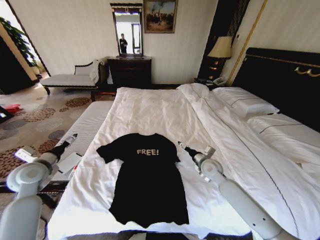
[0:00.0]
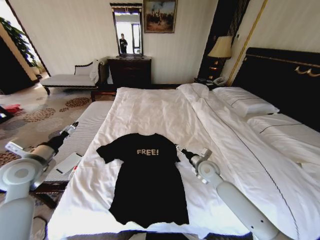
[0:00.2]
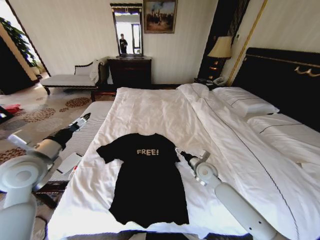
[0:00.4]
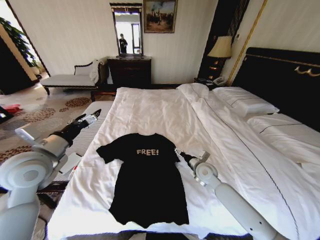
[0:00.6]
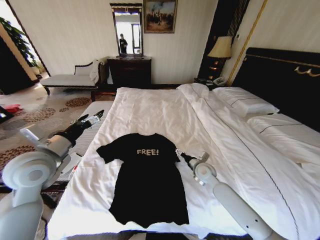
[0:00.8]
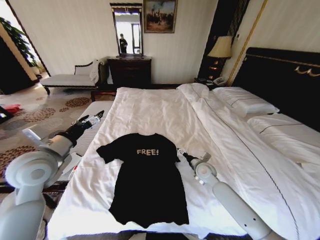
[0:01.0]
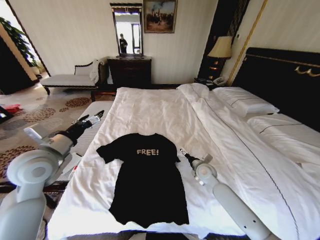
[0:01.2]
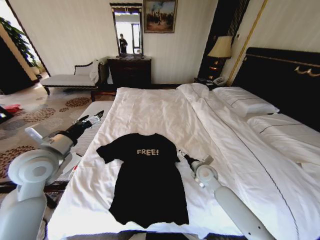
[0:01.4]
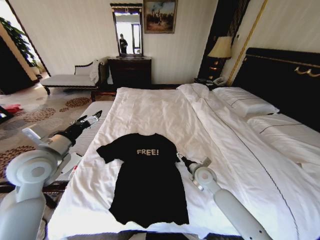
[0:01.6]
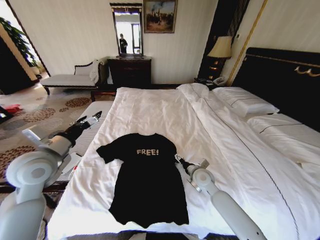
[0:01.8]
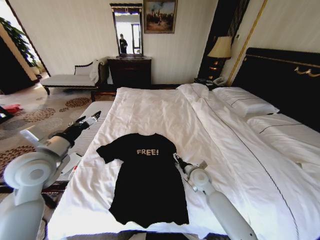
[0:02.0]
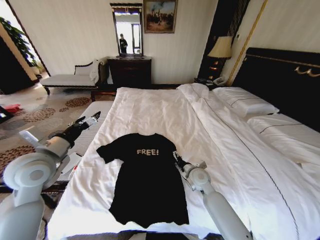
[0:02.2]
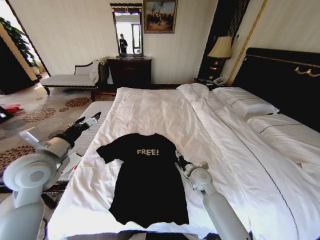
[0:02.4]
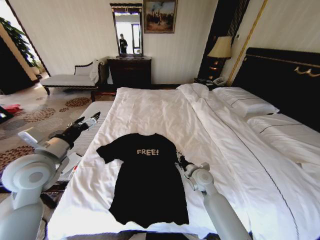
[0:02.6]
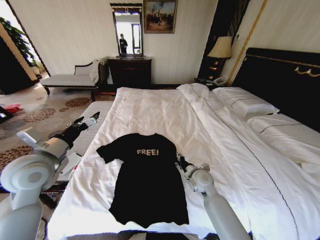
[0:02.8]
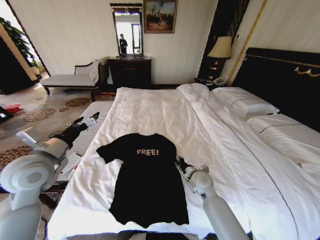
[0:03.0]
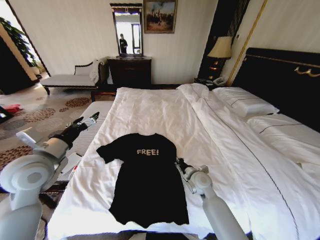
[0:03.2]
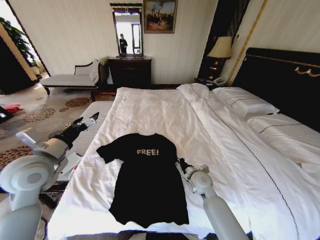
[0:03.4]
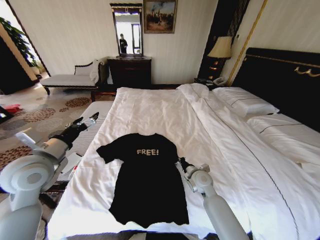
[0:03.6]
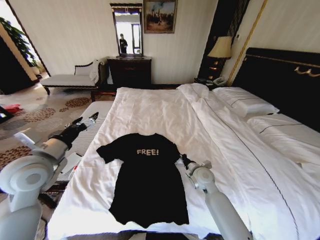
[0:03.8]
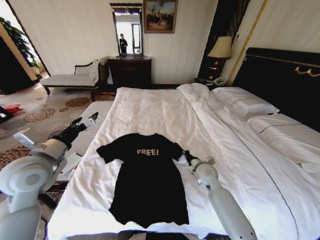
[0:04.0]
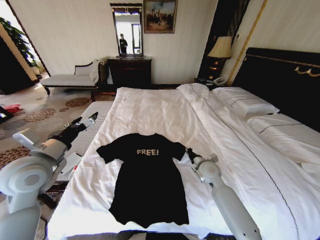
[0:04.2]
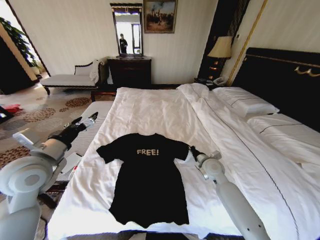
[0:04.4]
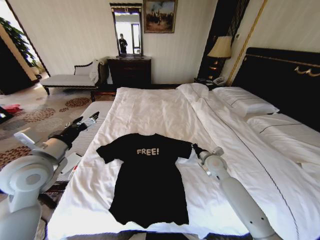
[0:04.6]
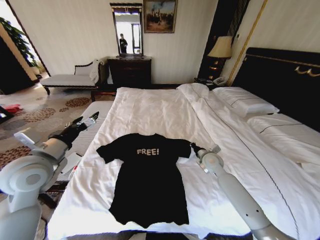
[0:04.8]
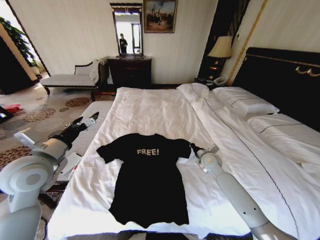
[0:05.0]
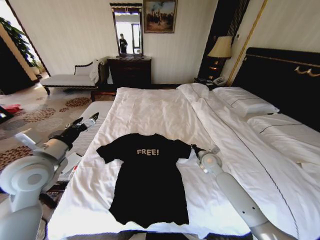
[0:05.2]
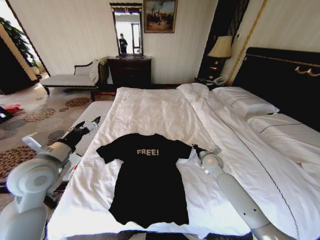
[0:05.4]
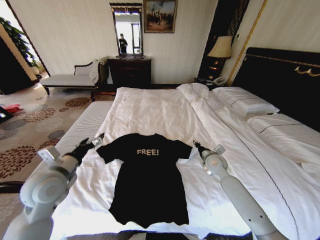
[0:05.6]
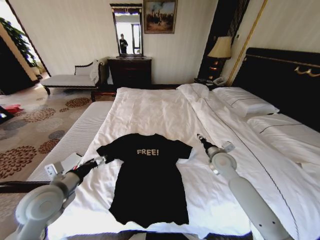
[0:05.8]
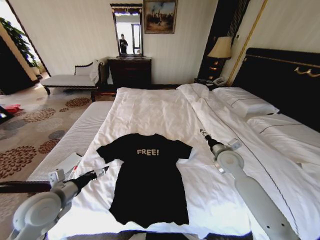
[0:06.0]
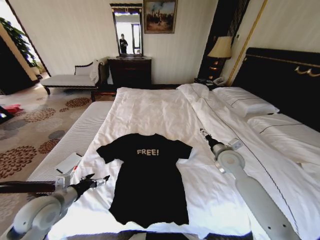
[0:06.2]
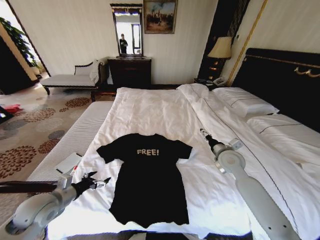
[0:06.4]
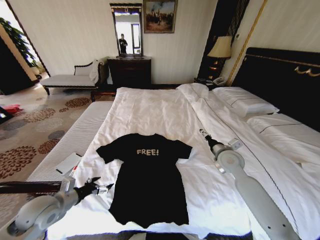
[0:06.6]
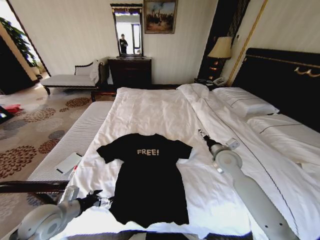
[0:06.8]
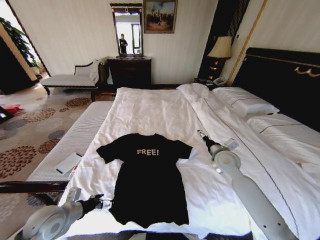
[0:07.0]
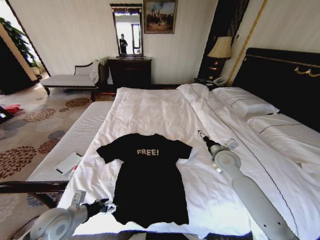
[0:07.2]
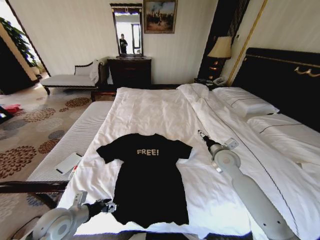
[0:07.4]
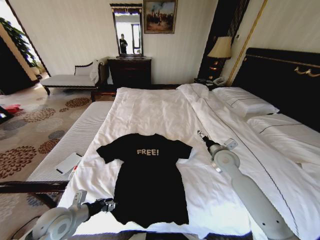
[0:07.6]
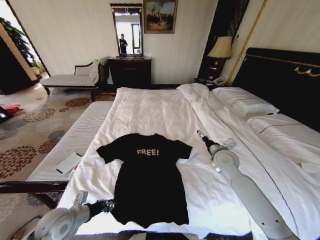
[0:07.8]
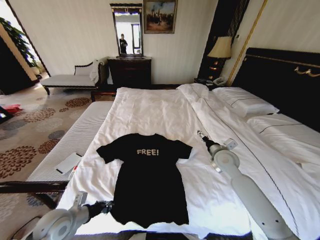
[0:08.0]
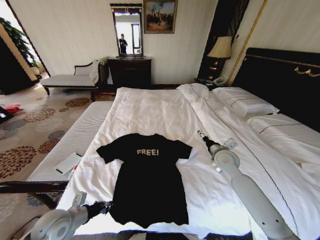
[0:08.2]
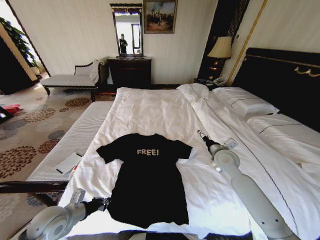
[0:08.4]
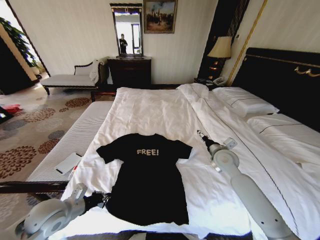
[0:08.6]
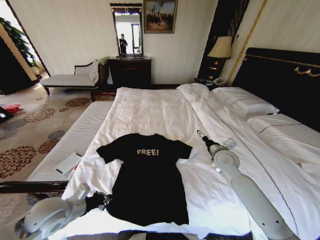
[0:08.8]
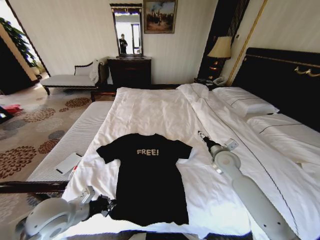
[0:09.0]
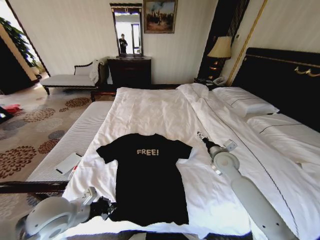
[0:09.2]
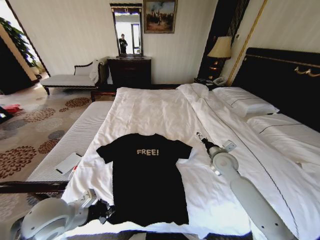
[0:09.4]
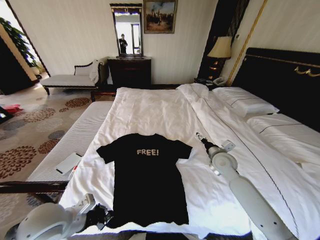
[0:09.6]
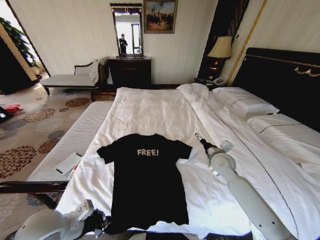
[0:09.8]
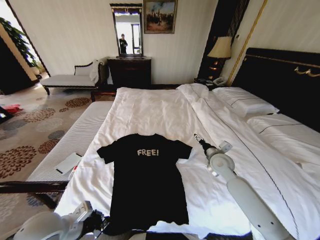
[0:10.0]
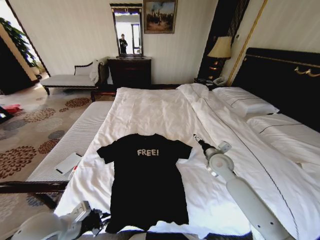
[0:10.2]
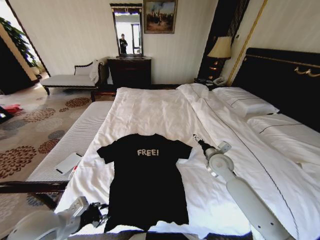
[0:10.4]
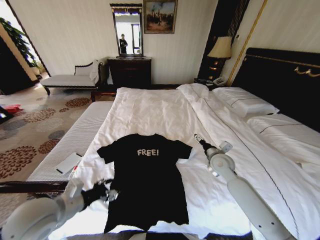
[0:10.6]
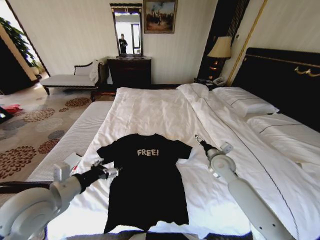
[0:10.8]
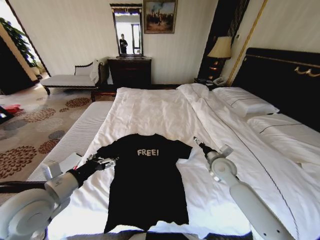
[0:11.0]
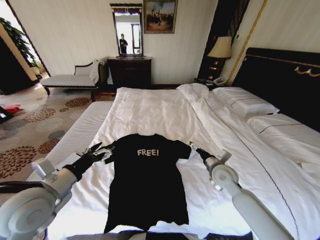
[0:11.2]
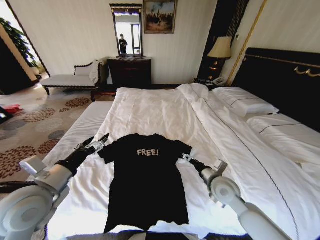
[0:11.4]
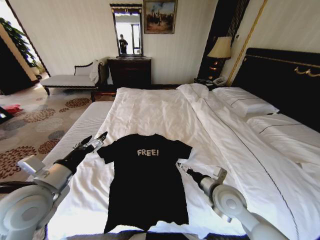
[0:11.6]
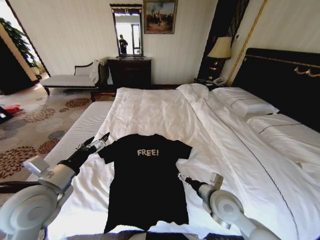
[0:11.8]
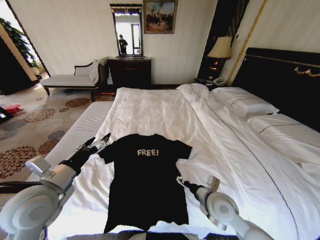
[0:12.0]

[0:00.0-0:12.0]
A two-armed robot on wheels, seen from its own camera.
Task of the whole recording: Fold the clothes on the bed.
0:00.0 to 0:01.6: The right gripper changes place by roughly 5 cm, while the left gripper is displaced to the right and upward by about 15 cm.
0:01.6 to 0:03.0: The right gripper closes.
0:03.0 to 0:04.4: The right gripper moves to the right, about 5 cm, and closes its fingers.
0:04.4 to 0:06.0: The left gripper shifts approximately 10 cm downward and backward, while the right gripper is displaced upward by approximately 5 cm, and opens up.
0:06.0 to 0:07.6: The left gripper shifts some 10 cm downward, and closes up.
0:07.6 to 0:09.0: The left gripper goes roughly 10 cm upward, and closes.
0:09.0 to 0:10.4: The left gripper opens its fingers.
0:10.4 to 0:12.0: The right gripper shifts approximately 15 cm backward and to the left. The left gripper moves upward, some 5 cm, and opens its fingers.

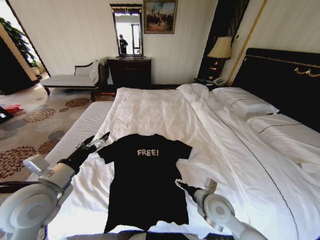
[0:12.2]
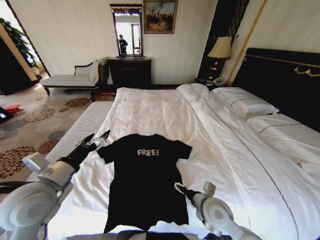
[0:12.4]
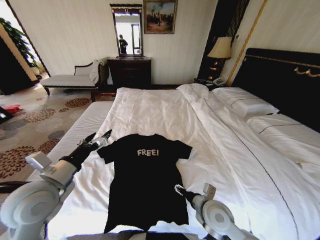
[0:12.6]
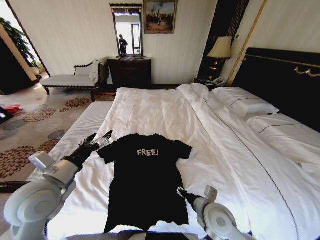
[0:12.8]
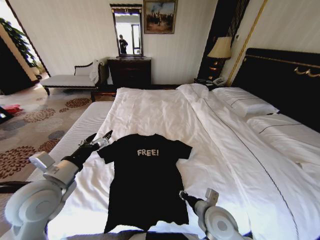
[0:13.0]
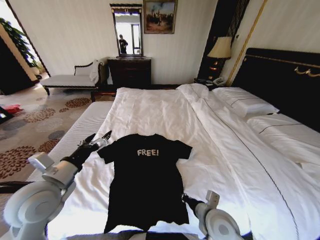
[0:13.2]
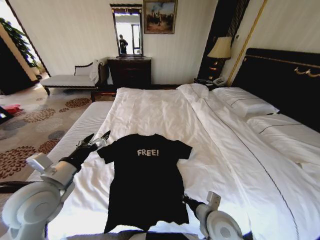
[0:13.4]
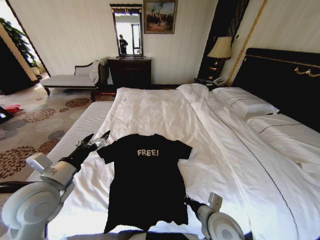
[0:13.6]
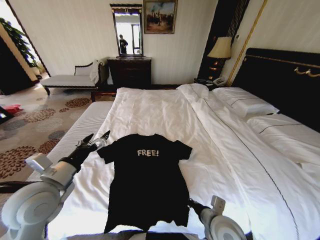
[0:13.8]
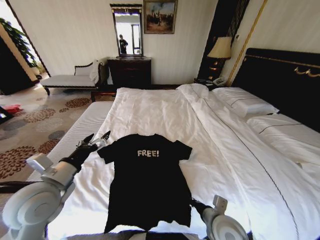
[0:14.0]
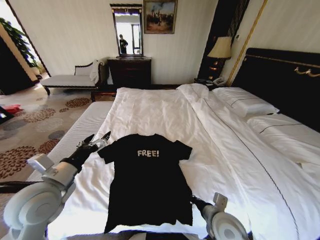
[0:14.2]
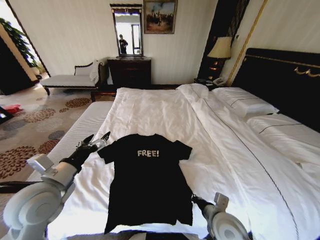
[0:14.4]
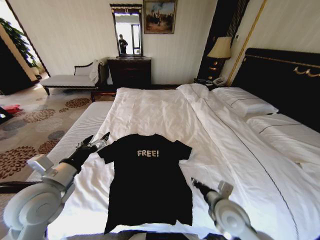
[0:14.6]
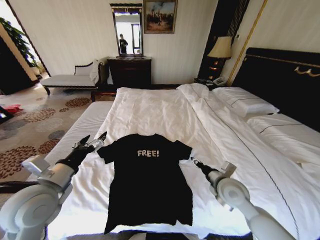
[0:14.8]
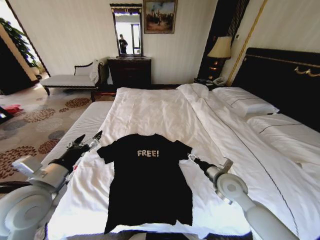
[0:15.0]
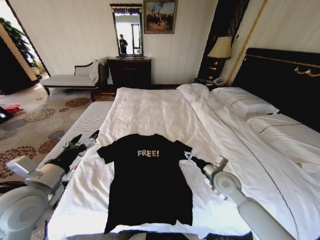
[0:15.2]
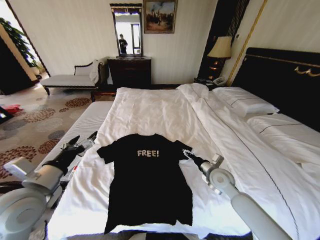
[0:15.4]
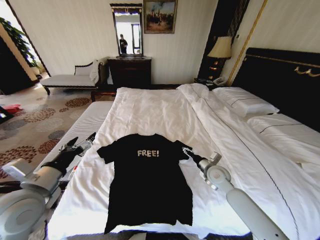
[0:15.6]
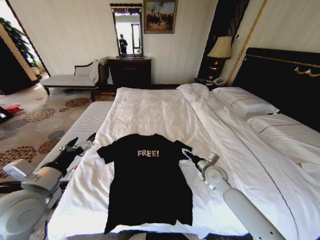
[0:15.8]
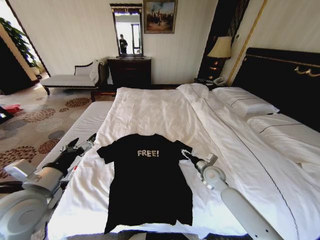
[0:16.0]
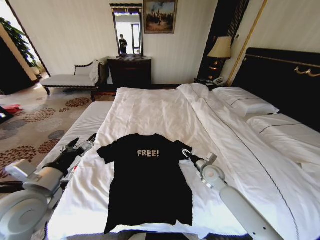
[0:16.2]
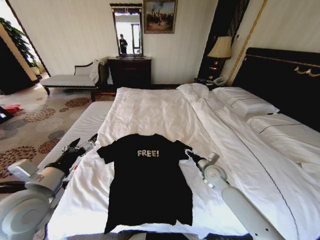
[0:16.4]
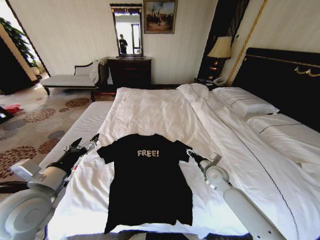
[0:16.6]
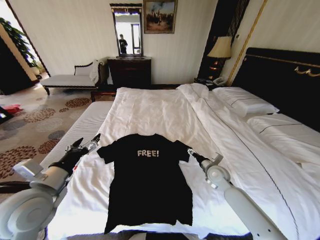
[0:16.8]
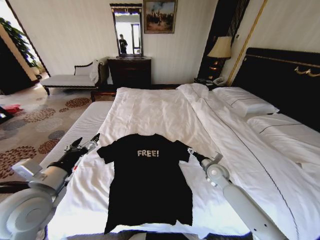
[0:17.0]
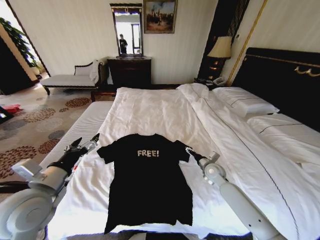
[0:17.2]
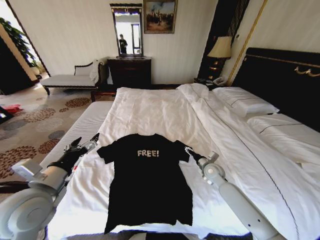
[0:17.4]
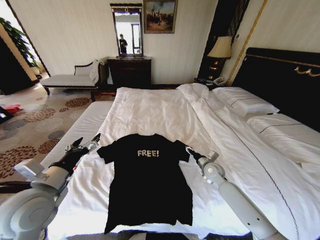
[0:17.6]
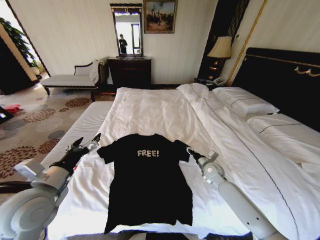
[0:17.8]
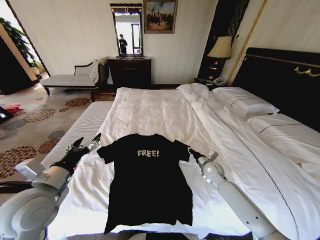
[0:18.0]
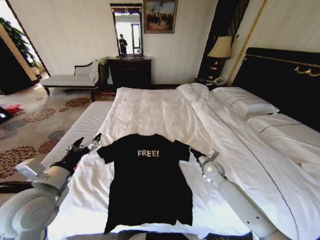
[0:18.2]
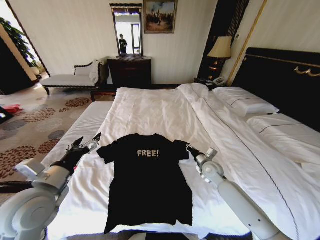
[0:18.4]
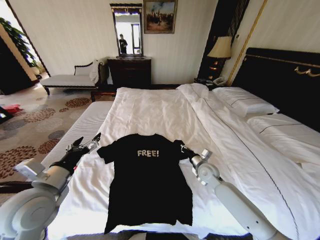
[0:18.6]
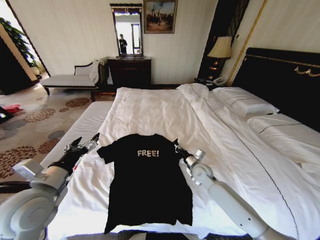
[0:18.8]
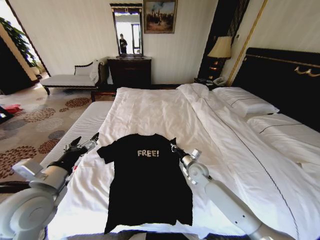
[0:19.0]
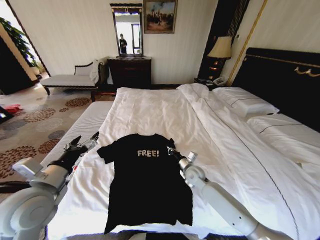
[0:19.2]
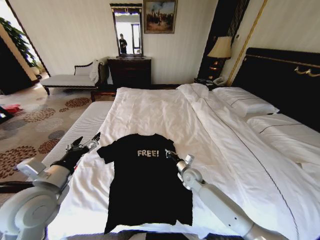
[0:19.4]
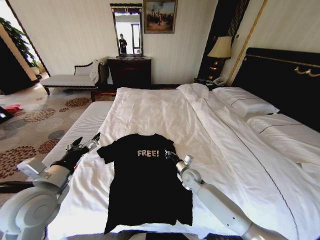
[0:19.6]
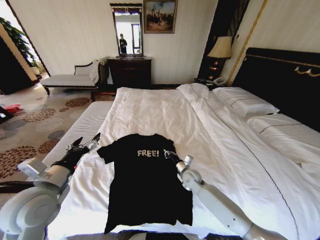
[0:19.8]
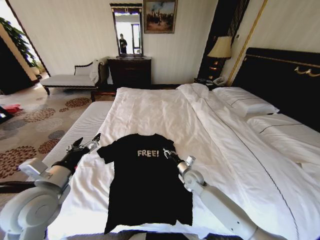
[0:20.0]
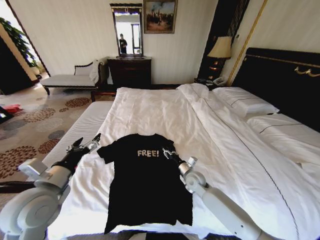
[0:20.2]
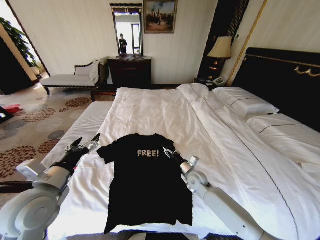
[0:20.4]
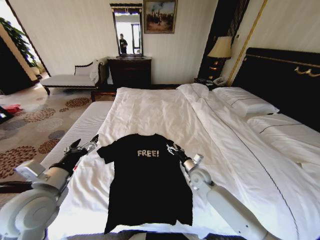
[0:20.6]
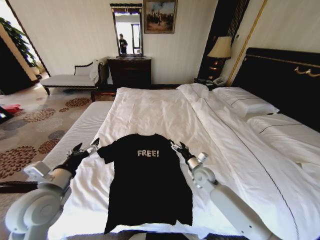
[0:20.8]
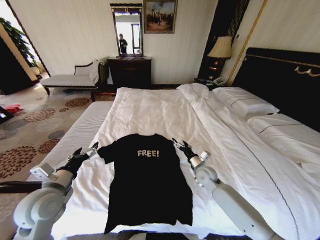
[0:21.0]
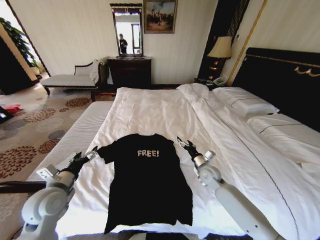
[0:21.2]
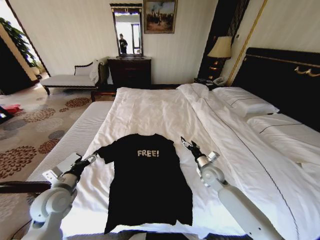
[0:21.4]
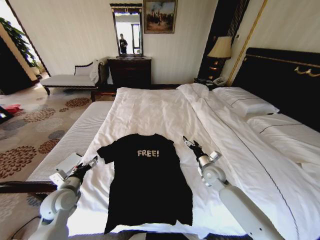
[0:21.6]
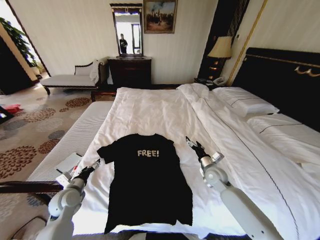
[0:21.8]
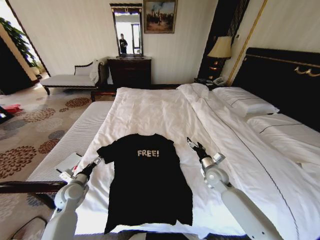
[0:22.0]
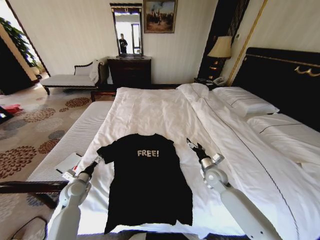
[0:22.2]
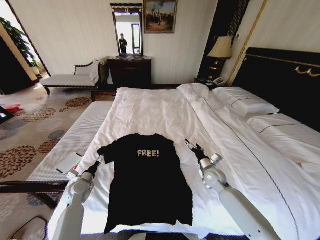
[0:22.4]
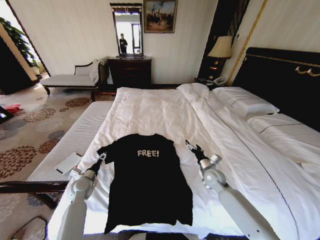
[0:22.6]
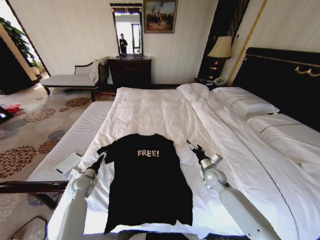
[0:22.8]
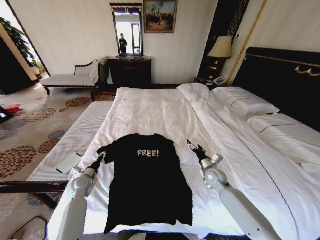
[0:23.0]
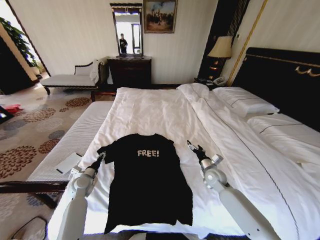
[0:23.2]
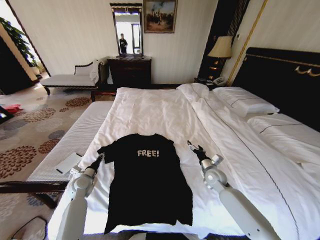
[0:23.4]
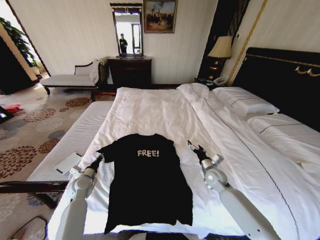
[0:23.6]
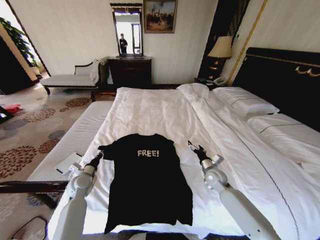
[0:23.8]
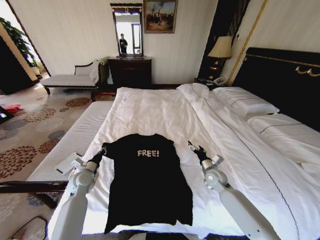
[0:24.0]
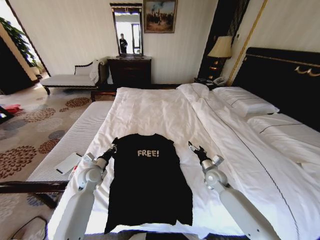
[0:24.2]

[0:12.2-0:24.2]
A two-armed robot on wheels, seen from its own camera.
Task of the whole recording: Fold the clothes on the bed.
0:12.2 to 0:13.8: The right gripper moves backward, roughly 5 cm, and closes.
0:13.8 to 0:15.2: The right gripper goes about 15 cm forward and to the right, and opens its fingers.
0:15.2 to 0:16.6: The right gripper moves forward, about 5 cm.
0:16.6 to 0:18.2: The right gripper closes up.
0:18.2 to 0:19.8: The right gripper travels to the left by roughly 10 cm.
0:19.8 to 0:21.2: The left gripper heads downward, covering roughly 5 cm; the right gripper is displaced to the right by about 10 cm, and opens up.
0:21.2 to 0:22.6: The left gripper goes some 20 cm downward and forward.
0:22.6 to 0:24.2: The left gripper is displaced upward and to the right by approximately 10 cm, and closes.
